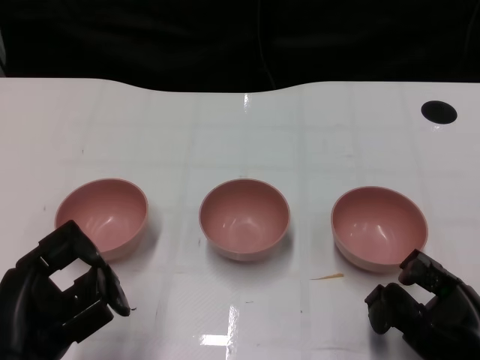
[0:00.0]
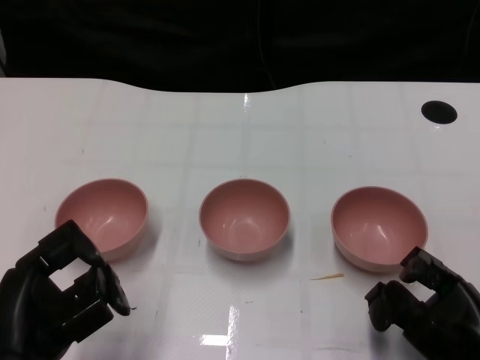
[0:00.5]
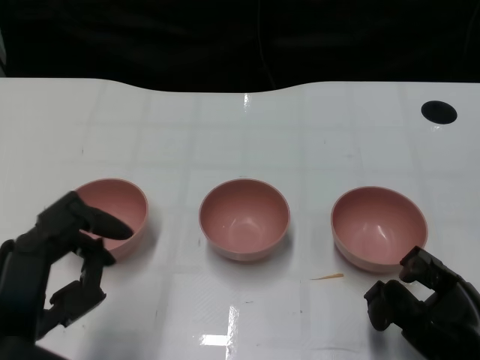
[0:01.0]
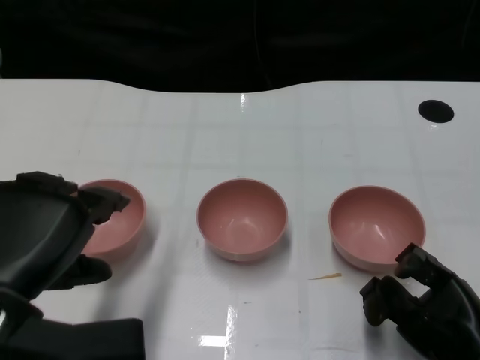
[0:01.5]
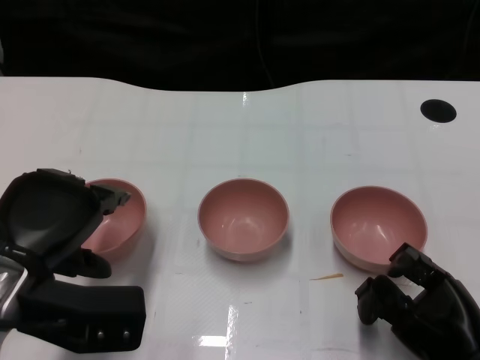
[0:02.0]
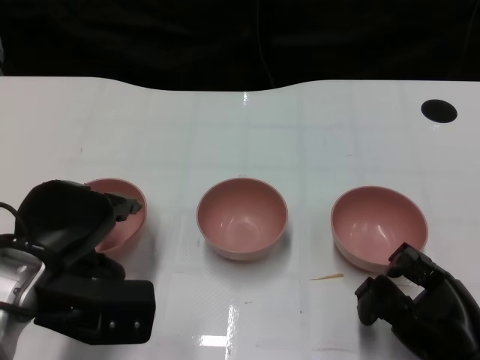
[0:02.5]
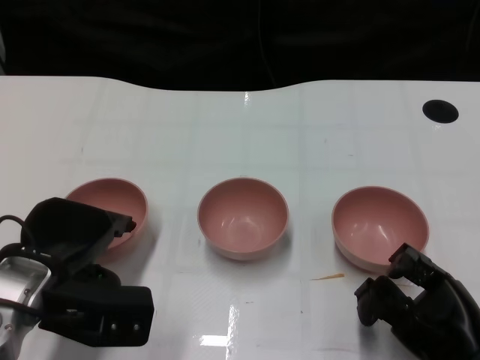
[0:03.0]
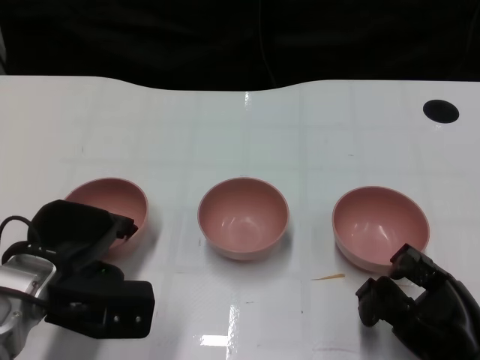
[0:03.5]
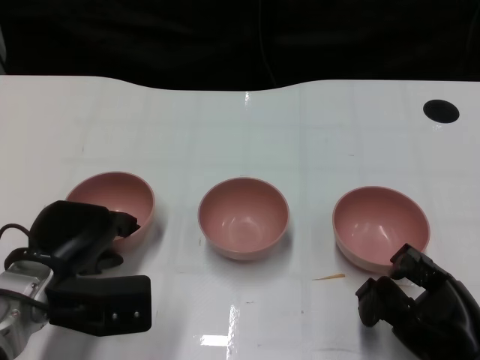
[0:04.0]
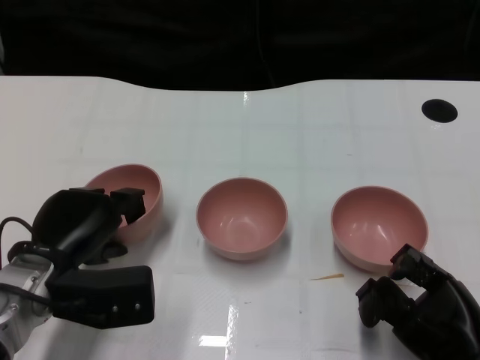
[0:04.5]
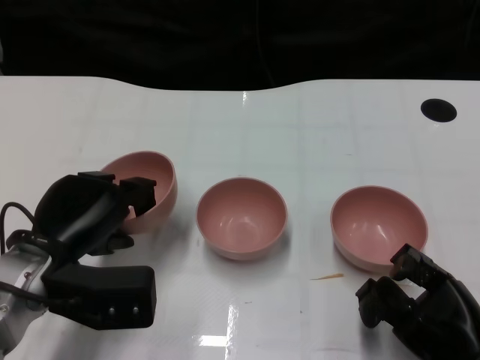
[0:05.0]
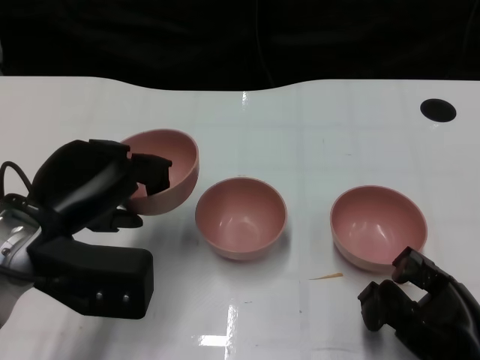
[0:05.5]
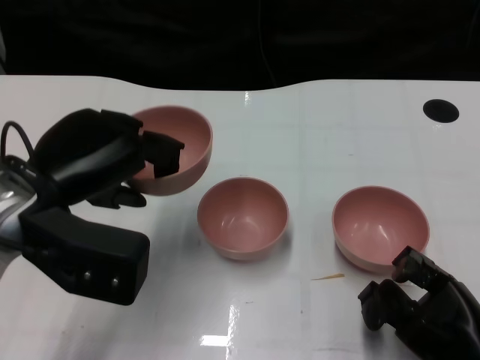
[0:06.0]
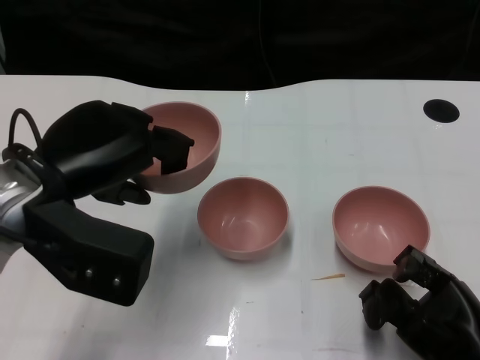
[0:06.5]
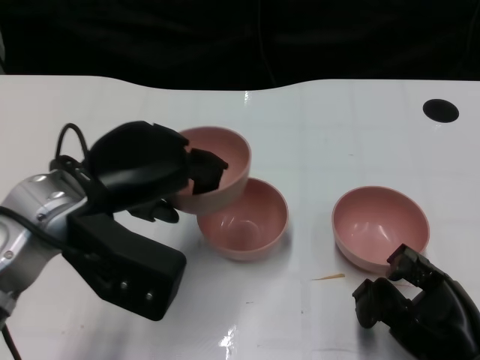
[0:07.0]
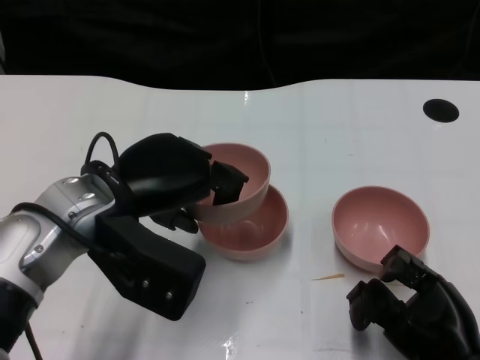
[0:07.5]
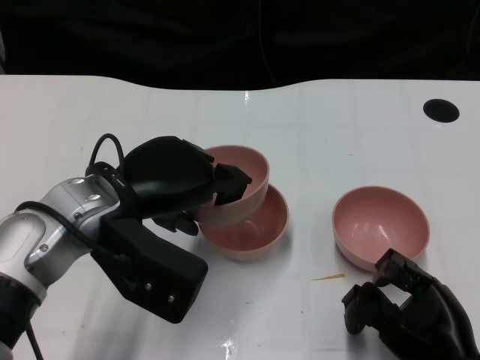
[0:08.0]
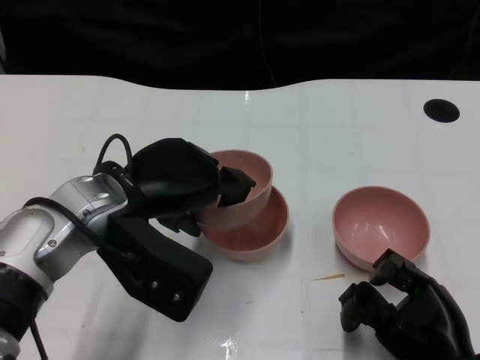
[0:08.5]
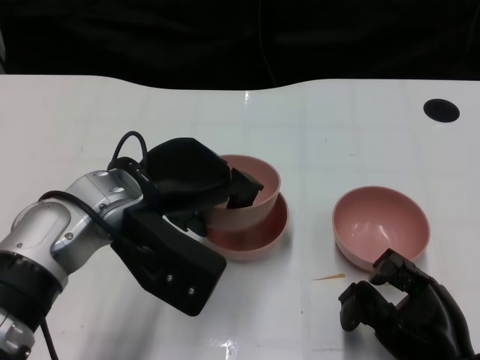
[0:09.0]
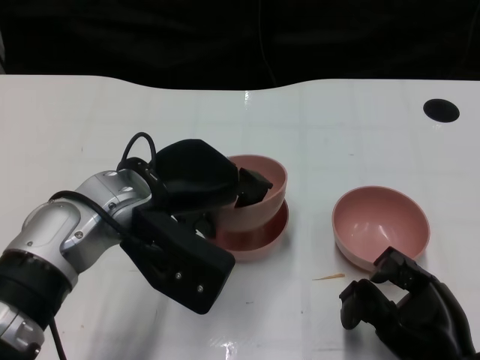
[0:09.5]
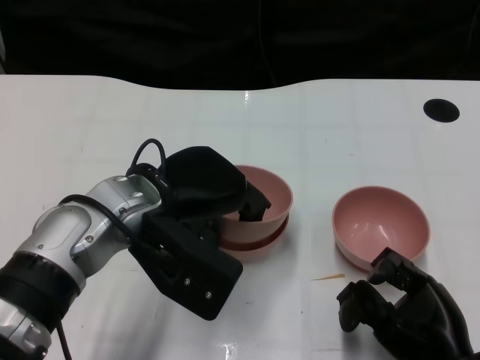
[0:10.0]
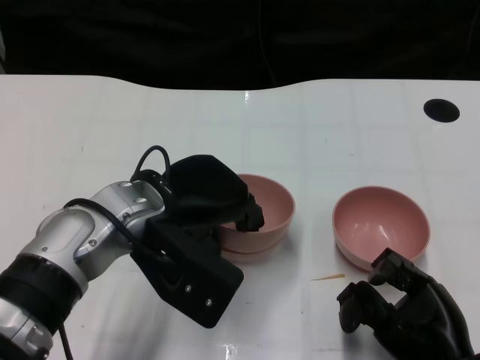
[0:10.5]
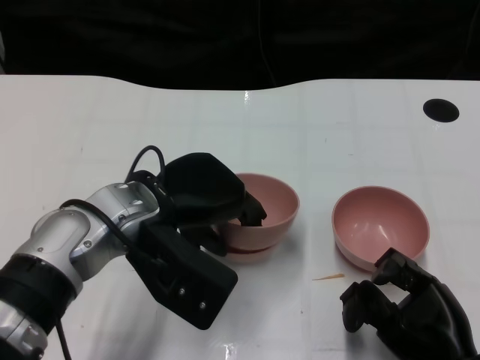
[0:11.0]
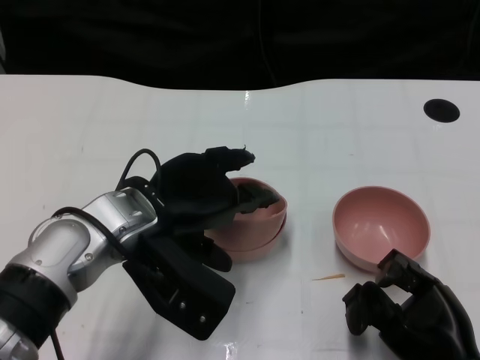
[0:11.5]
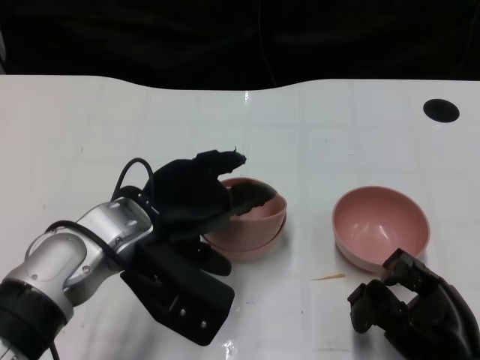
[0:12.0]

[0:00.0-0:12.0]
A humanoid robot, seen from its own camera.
Task of the whole recording: Pick up the bowl on one side of the table and place it on top of the middle bowl, then pick up the bowl on the other side of the table and place it on top of the middle bowls.
Step, 0:01.0 to 0:04.5: Grasp the bowl on the left with the left gripper.
0:02.0 to 0:04.0: The left hand goes about 10 cm downward.
0:04.0 to 0:06.0: The left hand shifts about 15 cm upward.
0:06.0 to 0:08.0: The left hand goes about 5 cm to the right.
0:10.0 to 0:12.0: The hands move only a little.

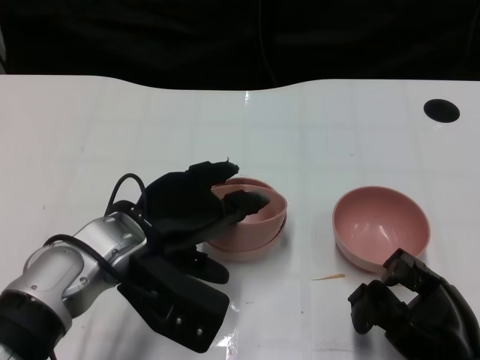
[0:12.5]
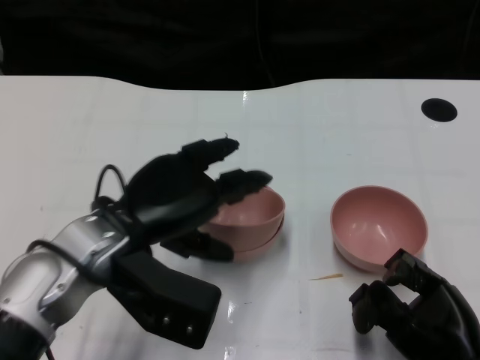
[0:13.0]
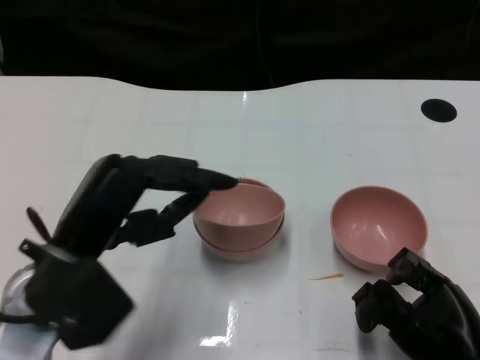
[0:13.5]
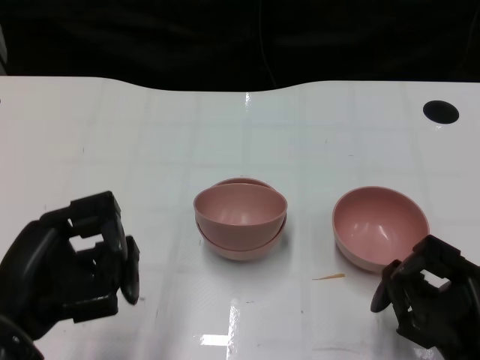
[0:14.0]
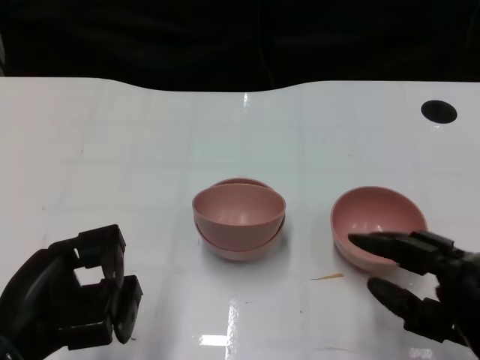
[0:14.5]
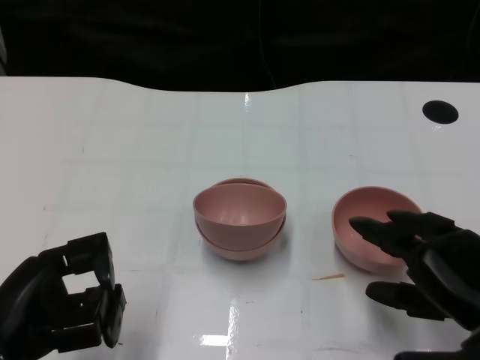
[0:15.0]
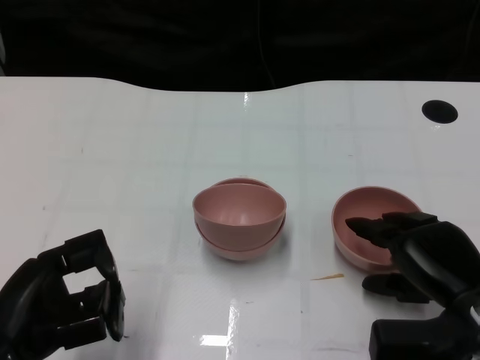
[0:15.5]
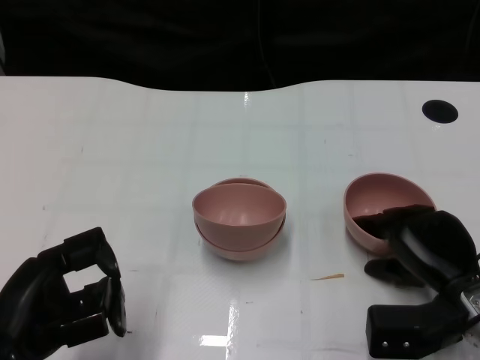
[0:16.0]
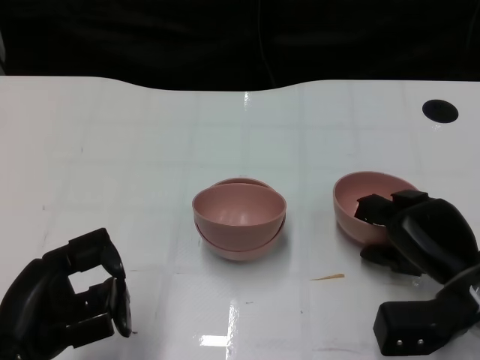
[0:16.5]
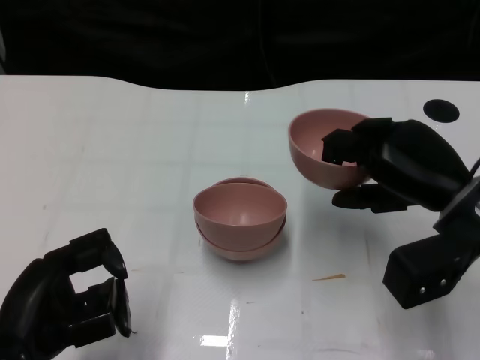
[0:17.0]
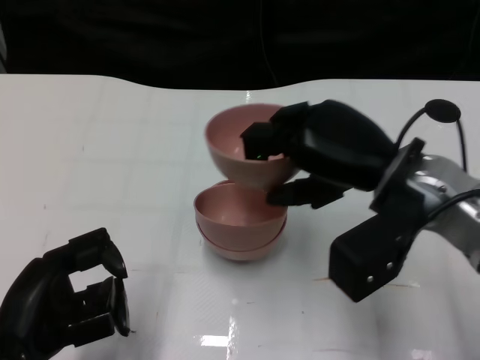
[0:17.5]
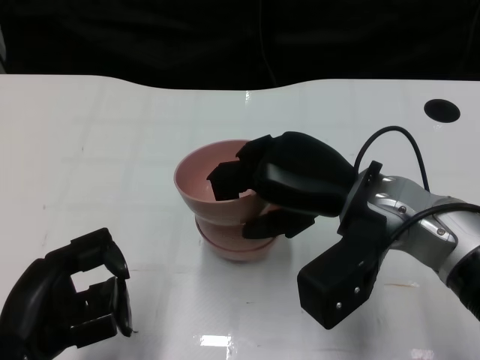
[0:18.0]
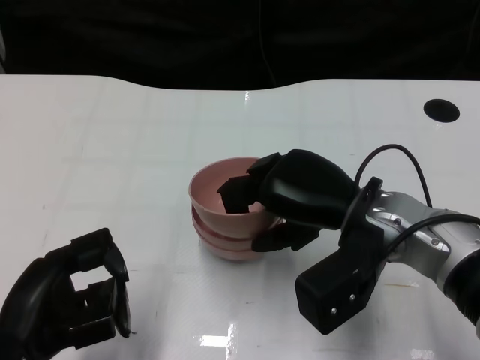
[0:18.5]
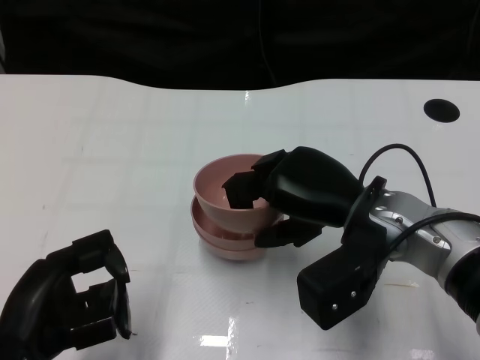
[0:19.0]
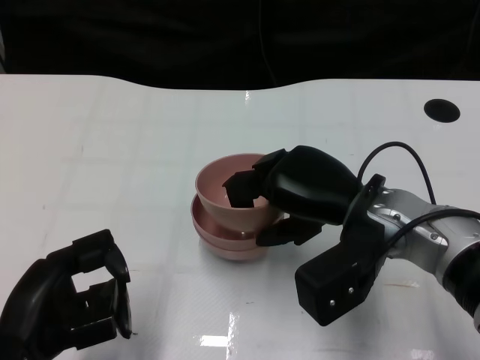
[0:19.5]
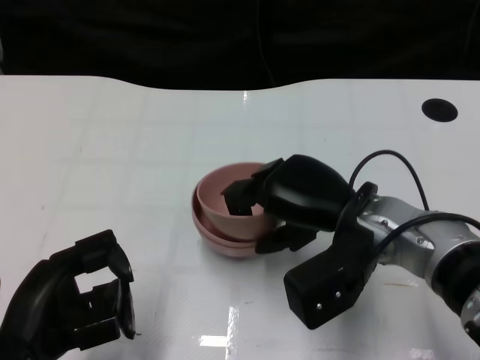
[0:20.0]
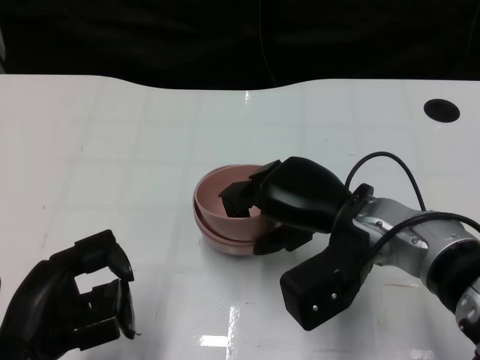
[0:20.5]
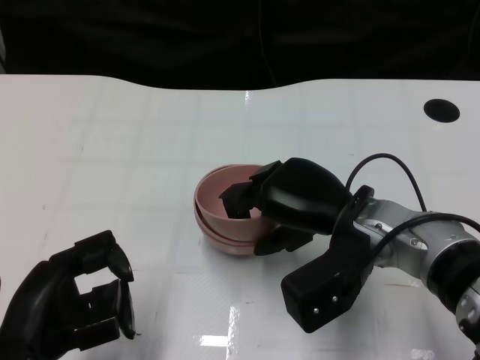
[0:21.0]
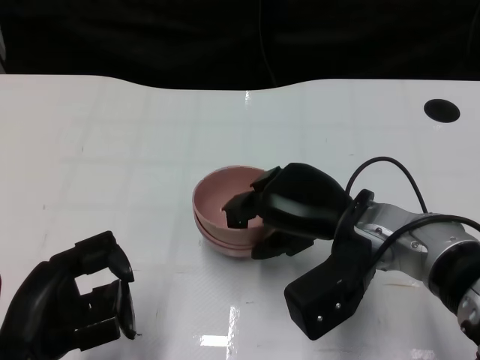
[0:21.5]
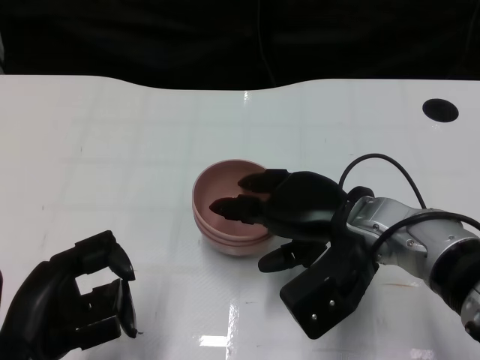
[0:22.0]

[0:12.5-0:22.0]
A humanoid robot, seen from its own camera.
Task of the whole recording: Pick up the bowl on one side of the table and place it on top of the middle bowl, then pick up the bowl on the other side of the table and place it on top of the middle bowls.
Step, 0:13.0 to 0:16.5: Grasp the bowl on the right with the right gripper.
0:12.5 to 0:14.5: The left hand is displaced backward and to the left by some 15 cm.
0:14.5 to 0:16.5: The right hand is displaced forward by approximately 10 cm.
0:16.5 to 0:18.0: The right hand travels upward and to the left by roughly 15 cm.
0:18.0 to 0:20.0: The hands stay close to where they were, moving slightly.
0:20.0 to 0:22.0: There are only small adjustments of the hands.

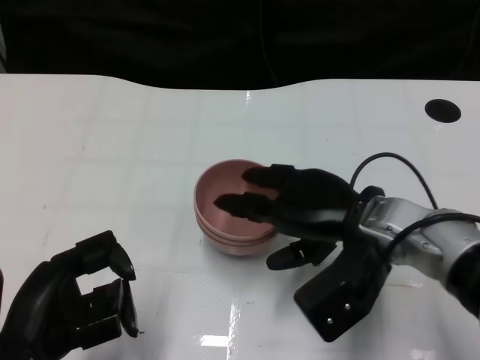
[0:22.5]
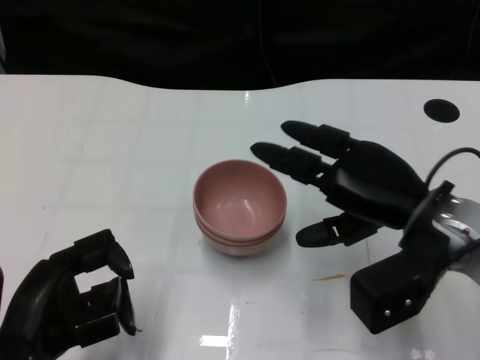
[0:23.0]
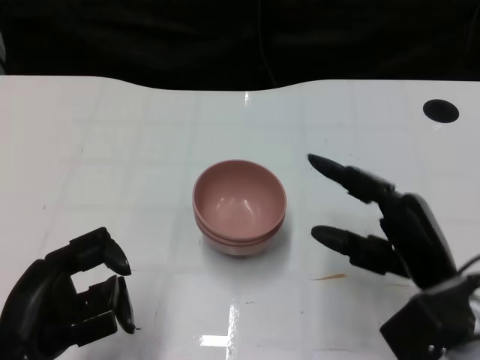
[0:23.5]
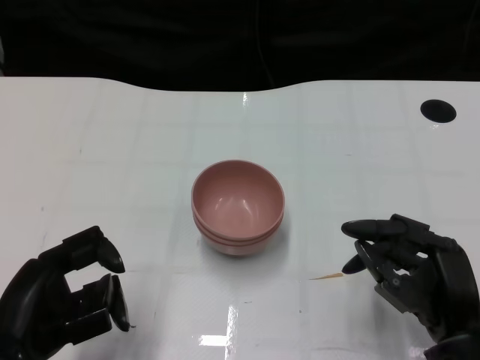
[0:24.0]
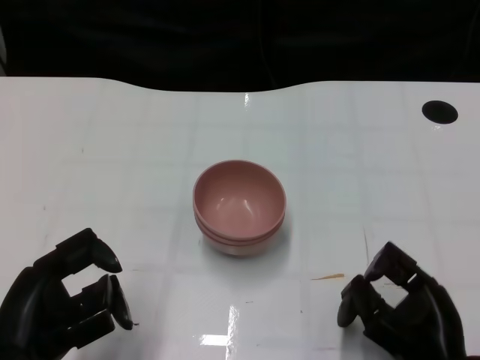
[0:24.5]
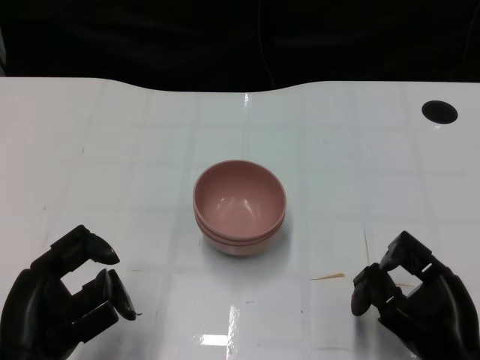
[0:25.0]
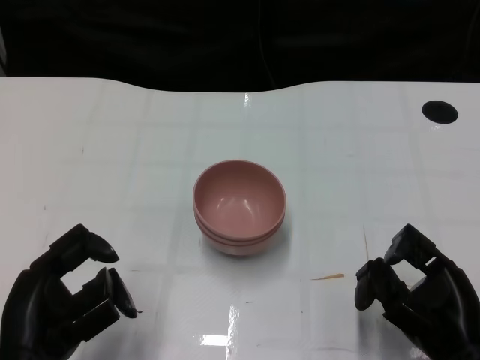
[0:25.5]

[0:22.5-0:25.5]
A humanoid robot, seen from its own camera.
Task of the whole recording: Pick up the bowl on one side of the table and place it on top of the middle bowl, then pick up the bowl on the other side of the table and place it on top of the middle bowls.
0:22.5 to 0:24.0: The right hand travels backward, to the right and downward by roughly 15 cm.

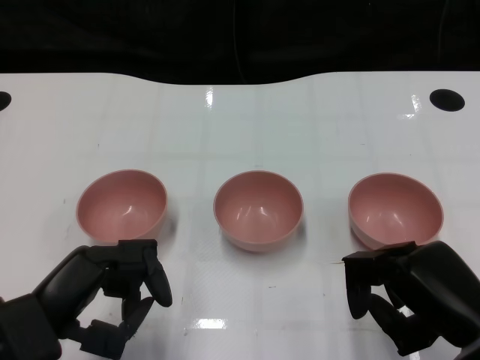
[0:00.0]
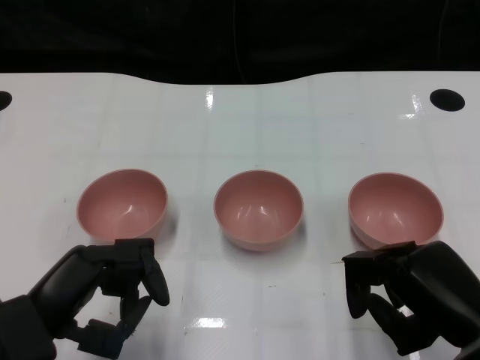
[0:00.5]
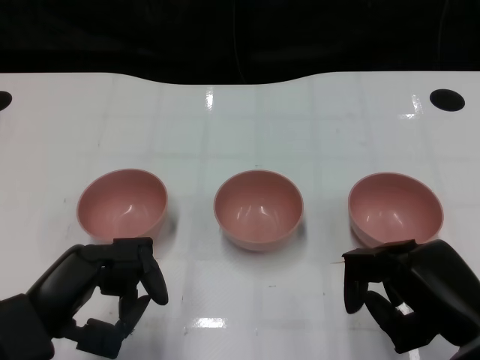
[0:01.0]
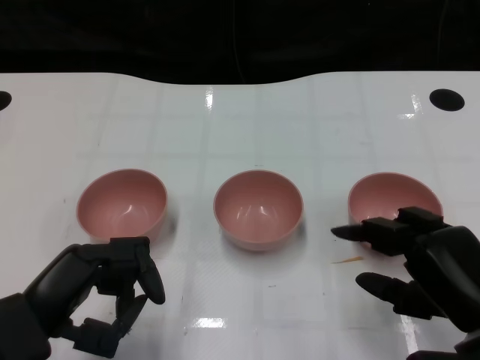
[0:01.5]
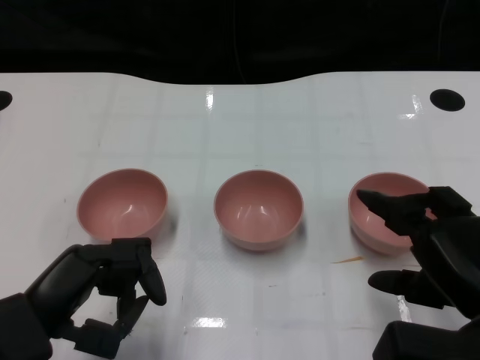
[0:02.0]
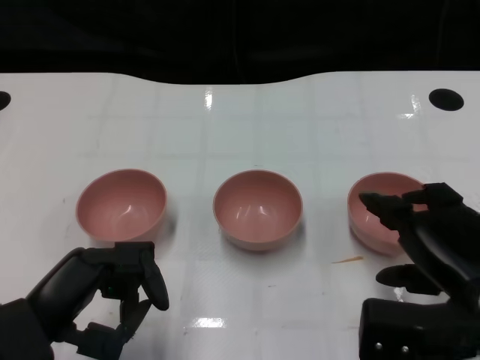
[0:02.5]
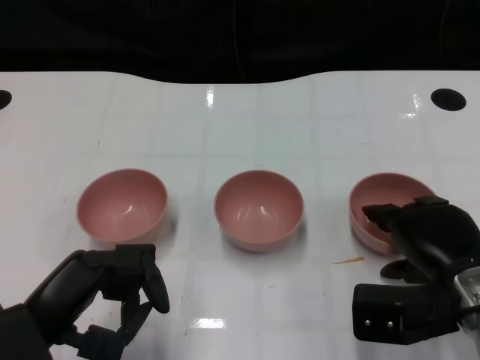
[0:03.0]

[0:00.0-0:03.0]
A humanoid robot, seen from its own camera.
Task of the whole recording: Pick up the bowl on one side of the table and place it on top of the middle bowl, then pick up the bowl on the other side of the table and place it on top of the middle bowls.
0:01.5 to 0:03.0: The right hand travels forward by approximately 5 cm.
